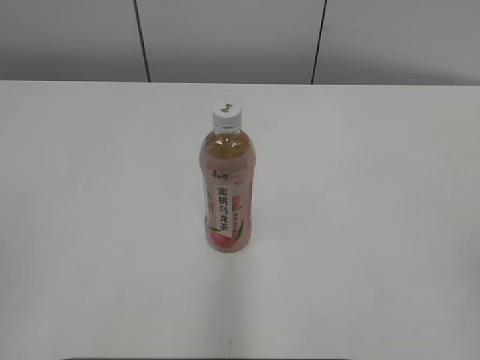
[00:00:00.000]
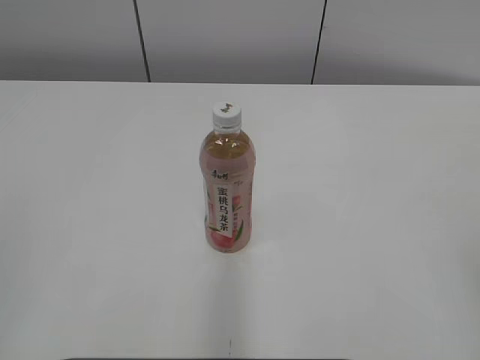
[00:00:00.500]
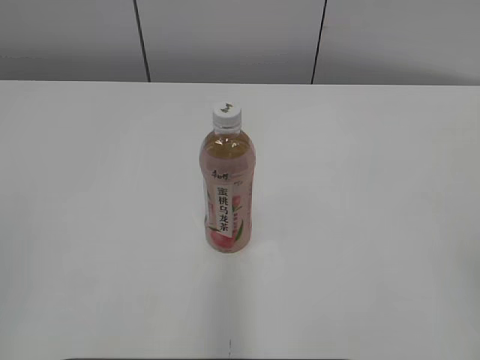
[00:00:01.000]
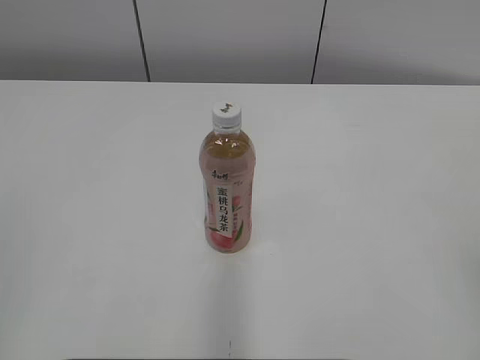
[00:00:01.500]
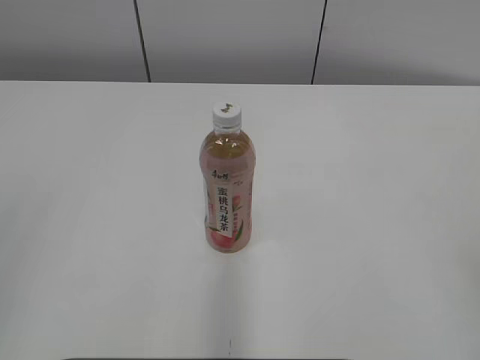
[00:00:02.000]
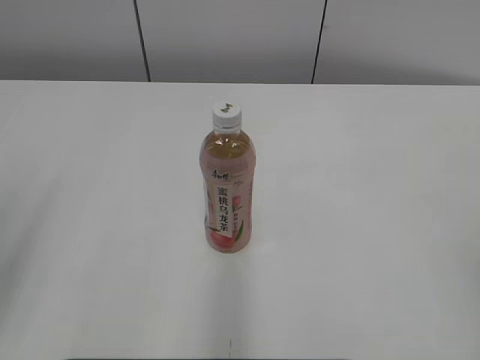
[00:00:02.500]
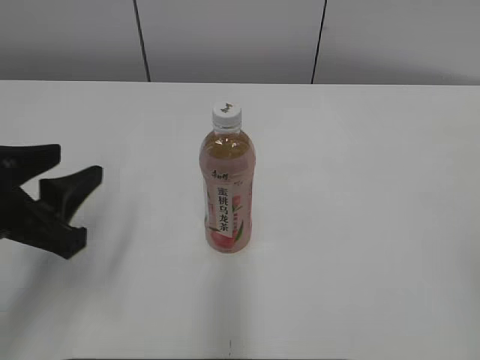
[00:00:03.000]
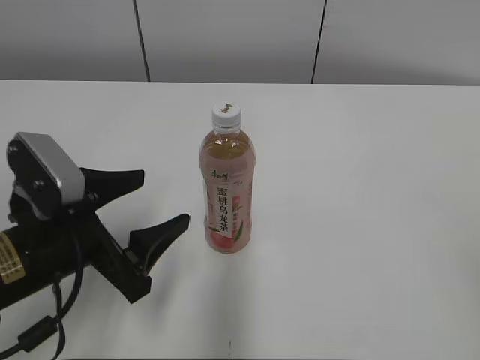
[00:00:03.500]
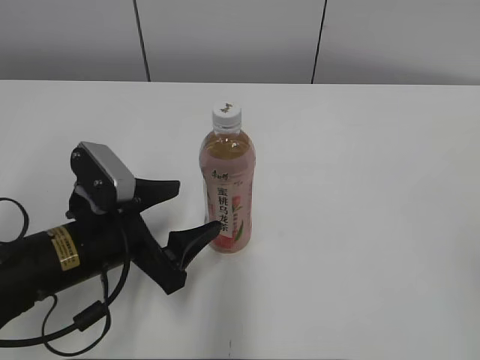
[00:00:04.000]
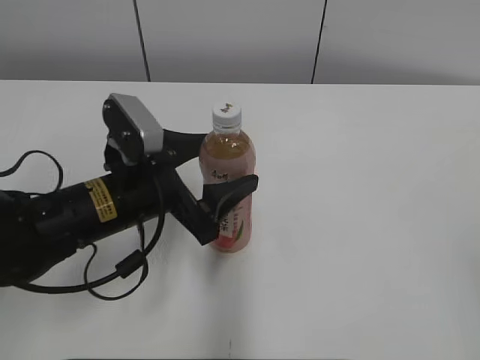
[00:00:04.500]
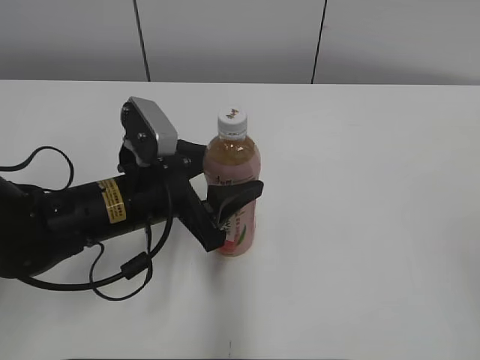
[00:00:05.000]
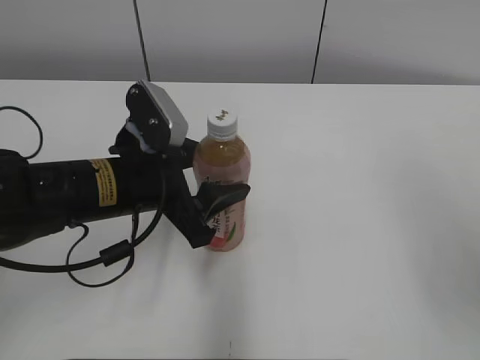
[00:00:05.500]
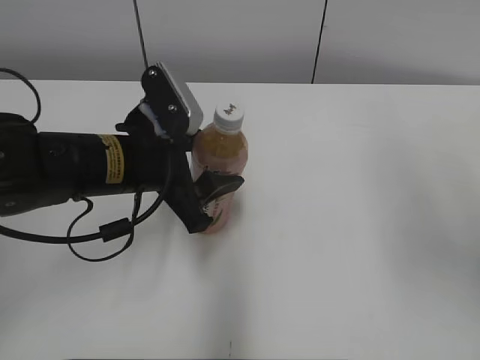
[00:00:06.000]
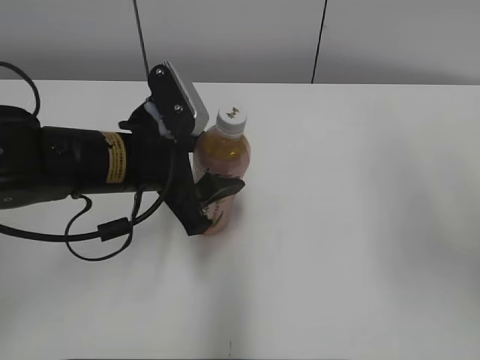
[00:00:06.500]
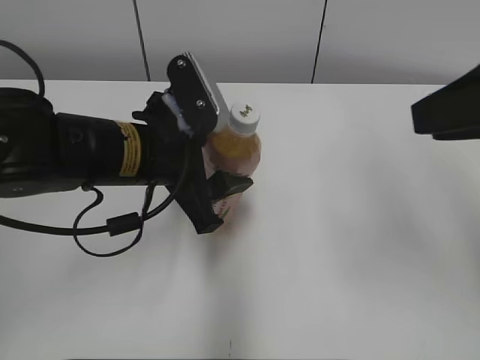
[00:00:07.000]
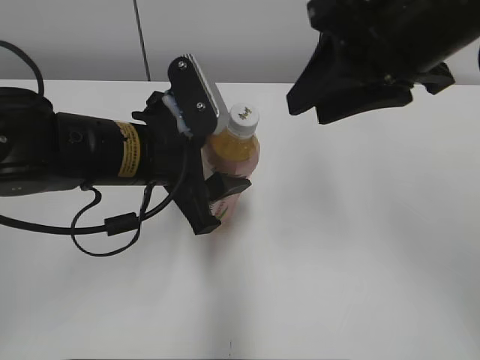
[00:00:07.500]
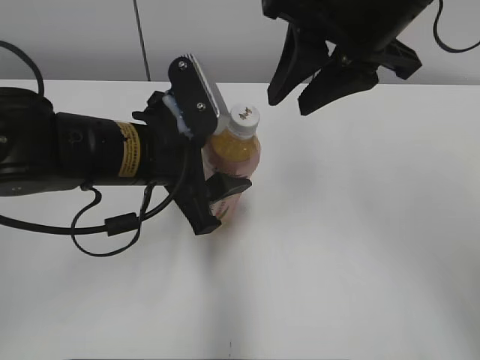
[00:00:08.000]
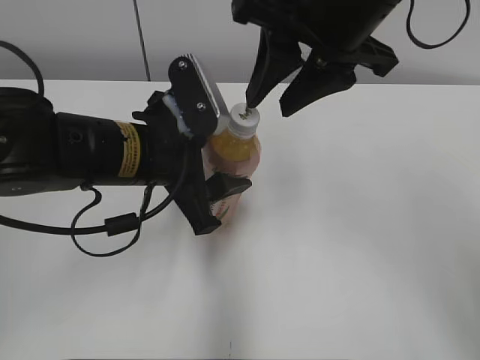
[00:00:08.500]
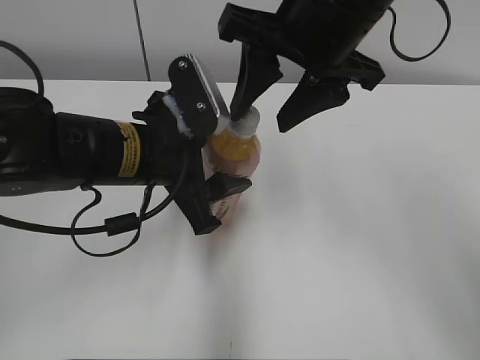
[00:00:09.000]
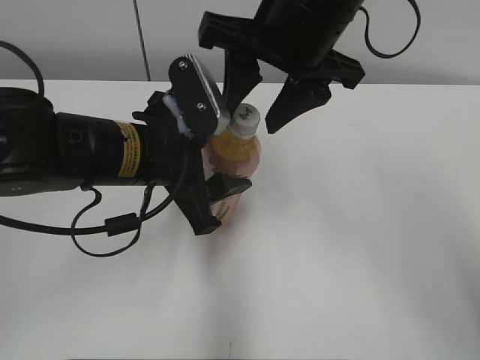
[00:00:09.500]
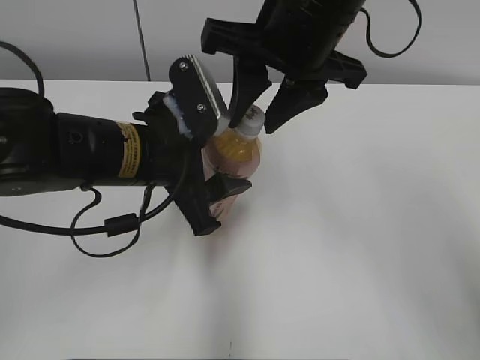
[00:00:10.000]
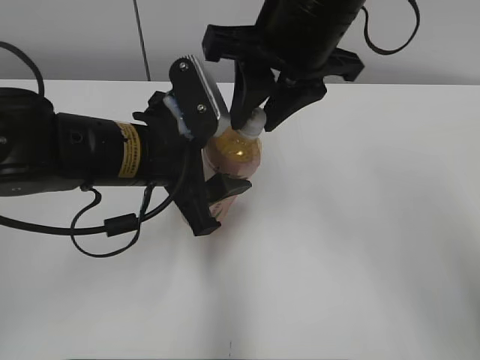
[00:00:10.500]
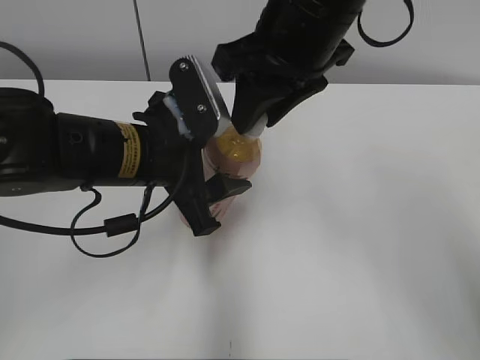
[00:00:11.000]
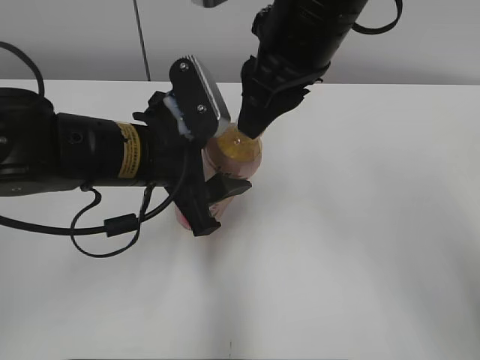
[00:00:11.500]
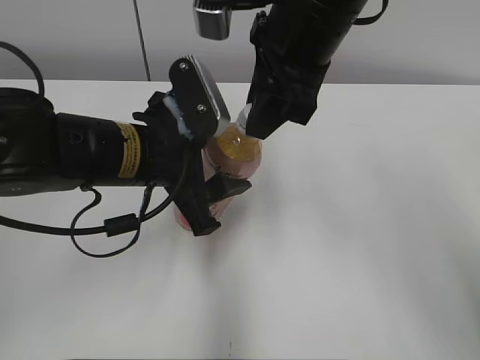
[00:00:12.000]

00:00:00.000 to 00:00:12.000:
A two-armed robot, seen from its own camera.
Step, 00:00:00.000 to 00:00:04.500: Grab the Peach Oolong Tea with the left hand.
Step, 00:00:05.000 to 00:00:08.000: Lift the Peach Oolong Tea with the left hand.
00:00:02.000 to 00:00:04.000: The left gripper travels downward, forward and to the right by some 35 cm, and opens its fingers.
00:00:04.000 to 00:00:06.000: The left gripper shifts approximately 10 cm upward and forward. Meanwhile the right gripper moves forward, approximately 20 cm.
00:00:06.000 to 00:00:08.000: The right gripper travels to the left and forward by approximately 20 cm.
00:00:08.000 to 00:00:10.000: The right gripper ends up roughly 5 cm from where it was.

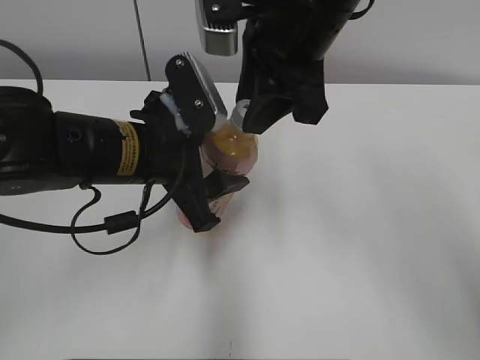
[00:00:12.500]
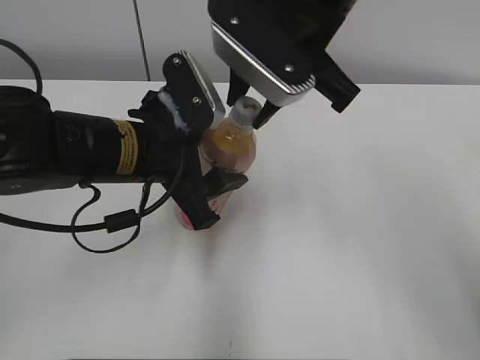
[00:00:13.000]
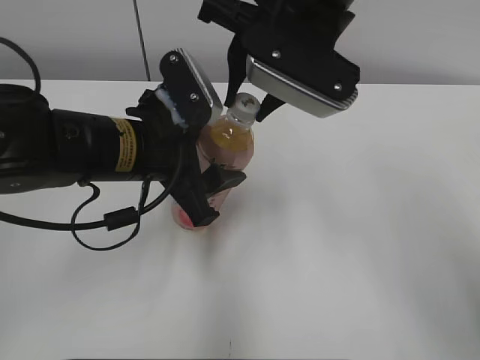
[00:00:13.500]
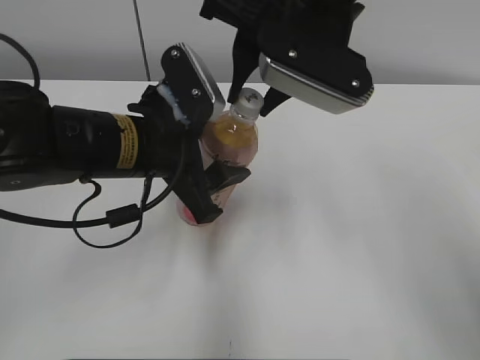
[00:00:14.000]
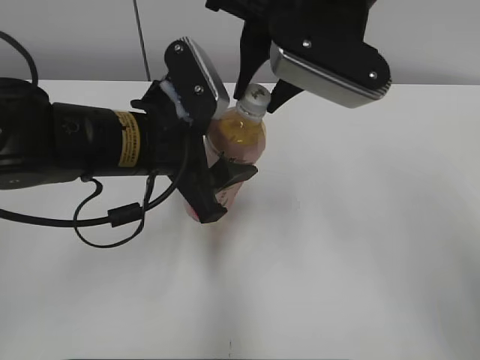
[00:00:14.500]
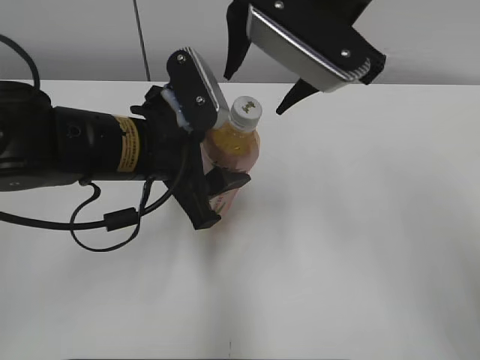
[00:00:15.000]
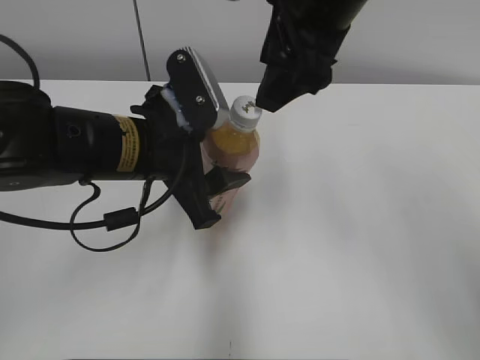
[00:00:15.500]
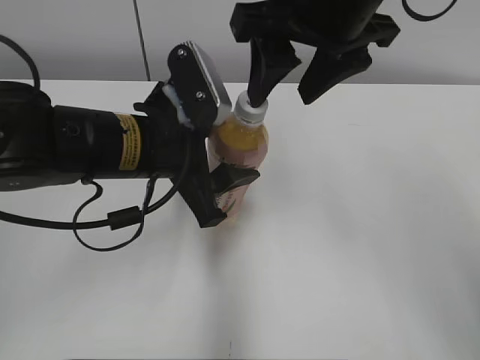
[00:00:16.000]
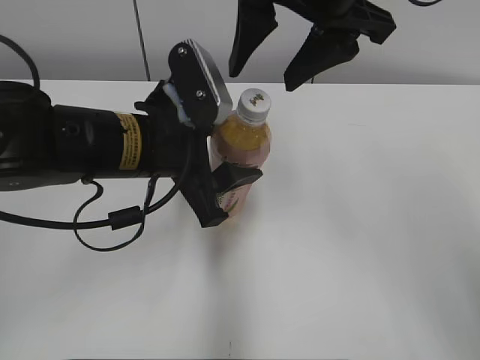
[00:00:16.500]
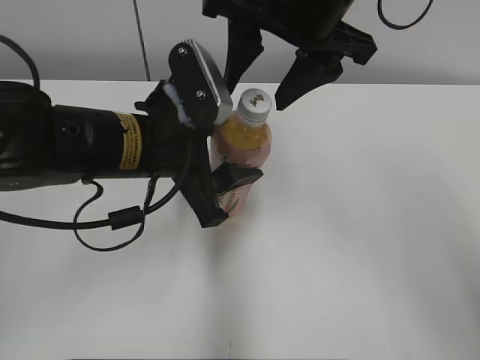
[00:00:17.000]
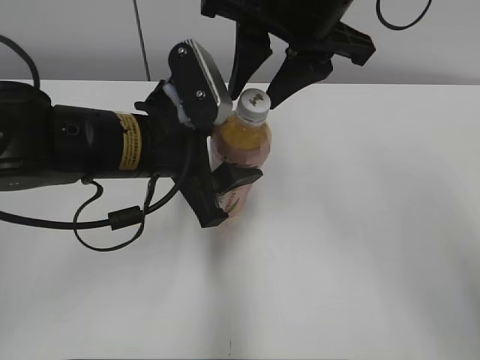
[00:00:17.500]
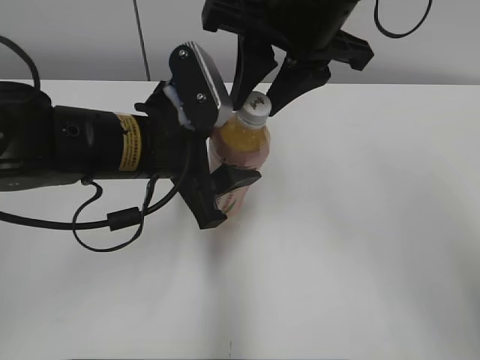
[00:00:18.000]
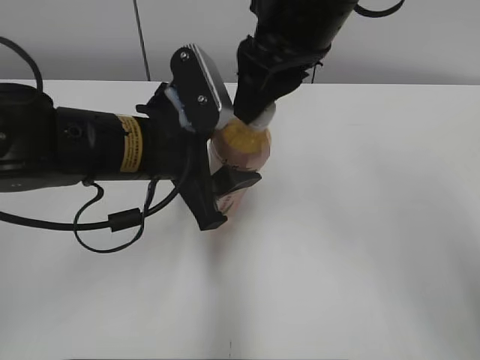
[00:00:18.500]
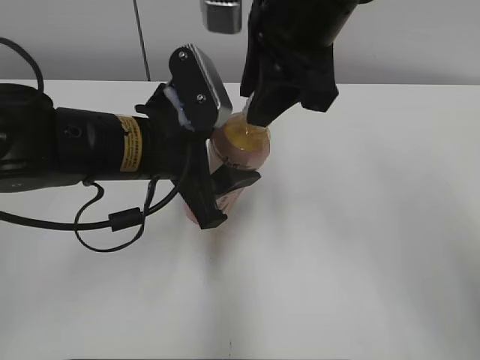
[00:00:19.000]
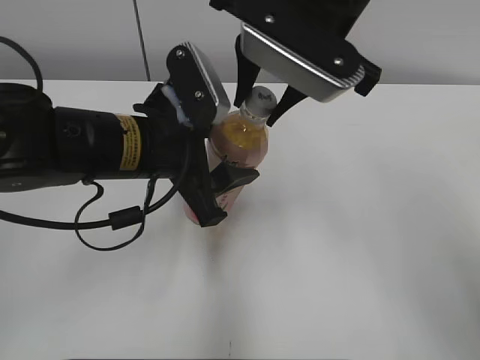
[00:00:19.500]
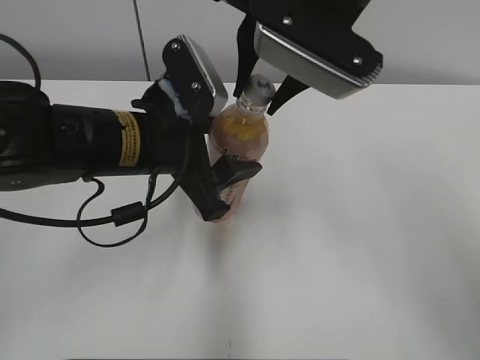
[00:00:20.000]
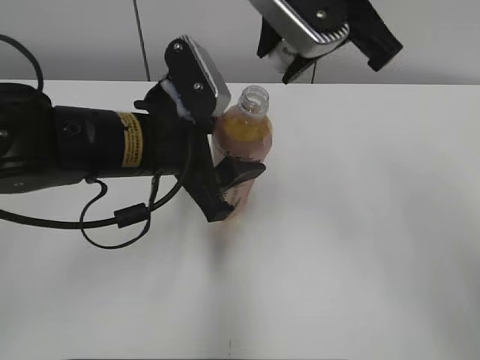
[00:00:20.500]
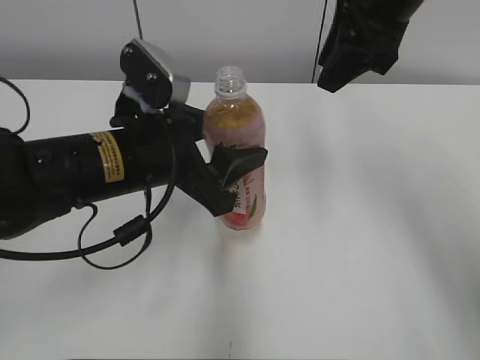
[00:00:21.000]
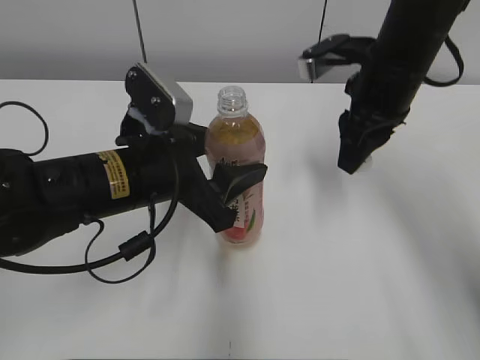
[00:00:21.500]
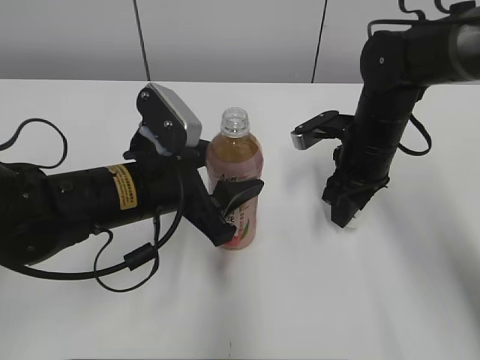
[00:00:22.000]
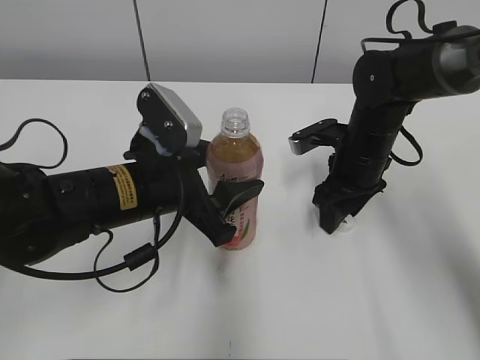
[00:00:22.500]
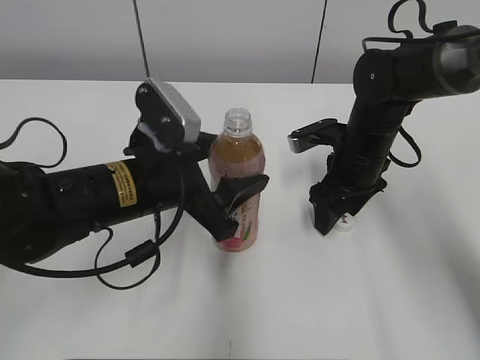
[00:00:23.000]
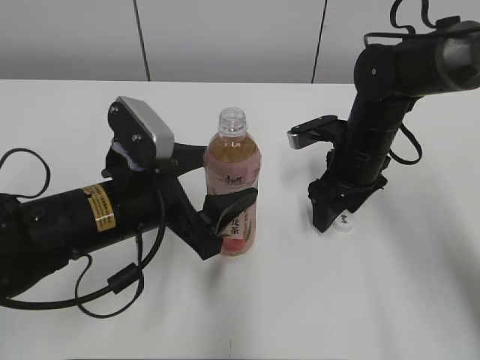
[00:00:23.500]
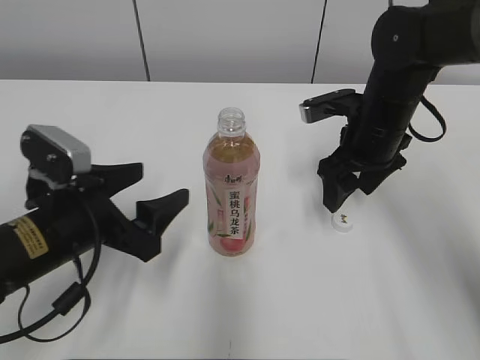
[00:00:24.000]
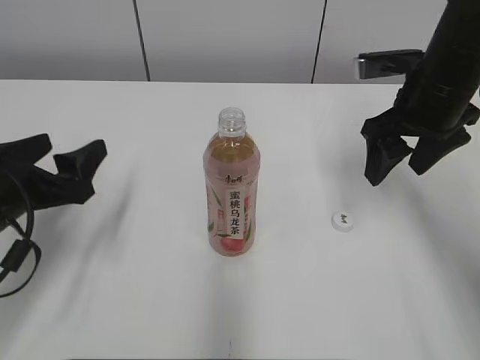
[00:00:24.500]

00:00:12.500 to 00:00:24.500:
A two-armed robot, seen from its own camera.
Step, 00:00:12.500 to 00:00:19.500: Secure the Peach Oolong Tea with the left hand.
Step, 00:00:20.500 to 00:00:22.000: Place the bottle cap on the right.
Step, 00:00:23.000 to 00:00:23.500: Place the Peach Oolong Tea with the left hand.
00:00:14.500 to 00:00:16.500: The right gripper opens its fingers.
00:00:16.500 to 00:00:18.500: The right gripper closes its fingers.
00:00:20.500 to 00:00:22.500: The left gripper travels downward by approximately 5 cm; the right gripper heads downward, covering roughly 25 cm, and opens.
00:00:22.500 to 00:00:24.500: The right gripper is displaced upward by some 10 cm, and opens. The left gripper travels to the left by approximately 15 cm.

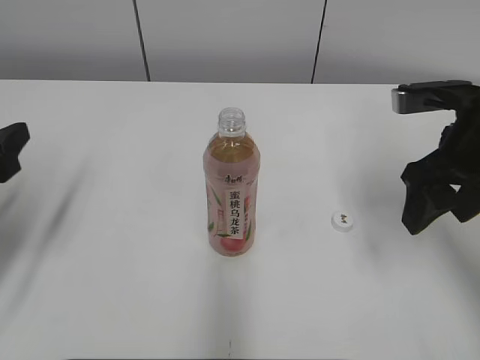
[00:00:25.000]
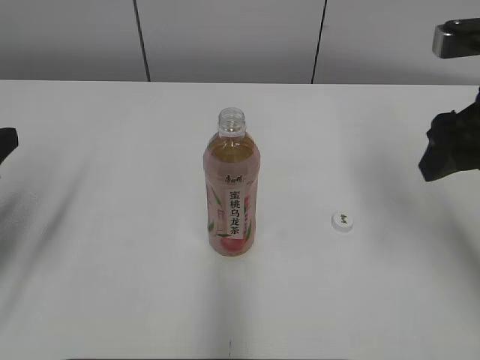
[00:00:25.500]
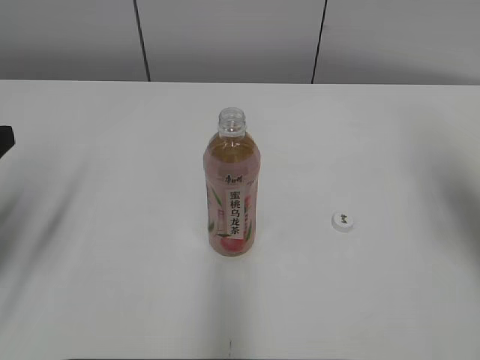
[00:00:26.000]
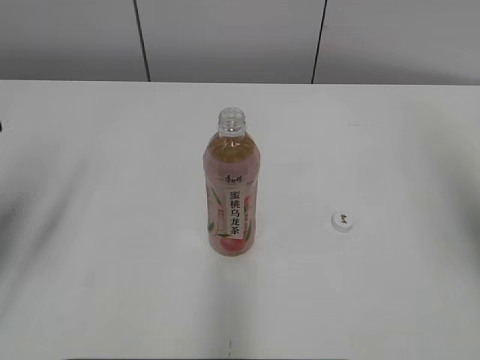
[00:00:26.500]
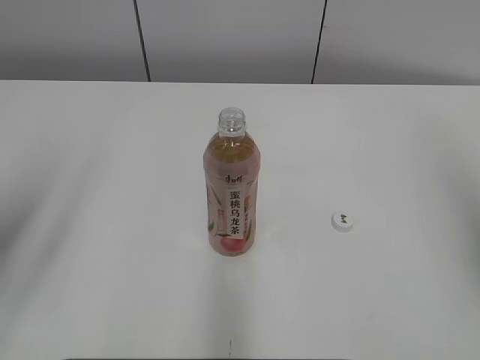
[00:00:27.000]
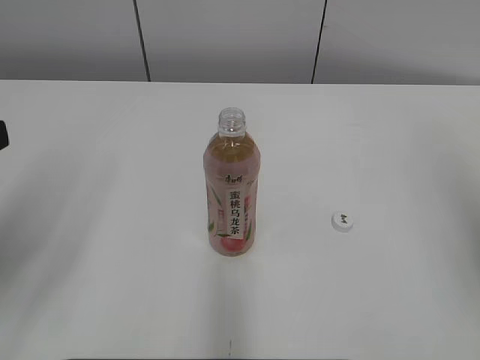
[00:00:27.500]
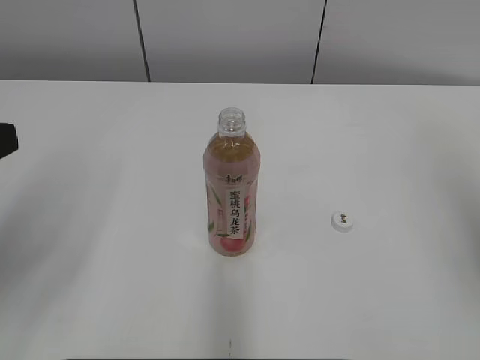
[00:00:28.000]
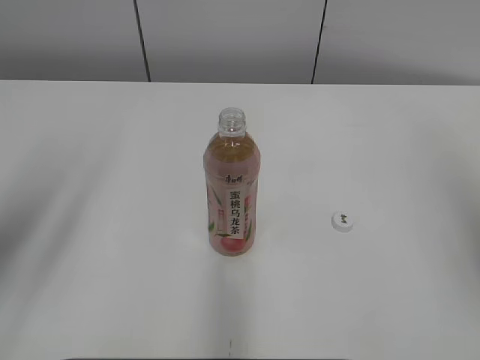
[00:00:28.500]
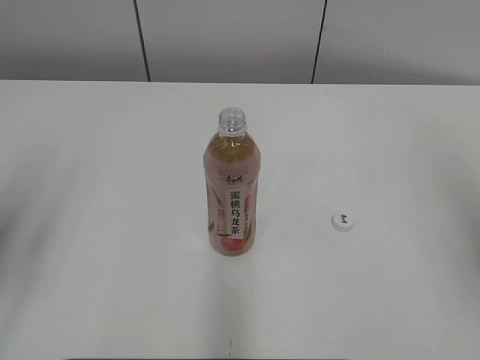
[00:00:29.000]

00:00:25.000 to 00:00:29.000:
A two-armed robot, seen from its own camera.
00:00:25.000 to 00:00:27.000: The right gripper heads upward, backward and to the right, covering approximately 20 cm, and closes up. Meanwhile the left gripper is displaced upward and backward by some 15 cm, and closes up.
